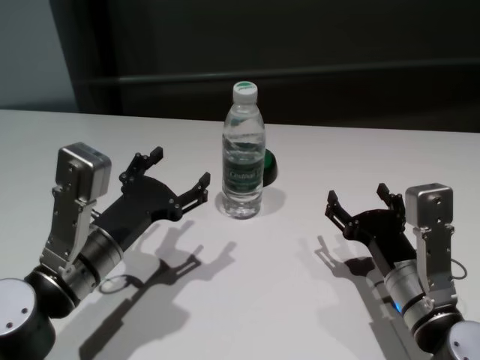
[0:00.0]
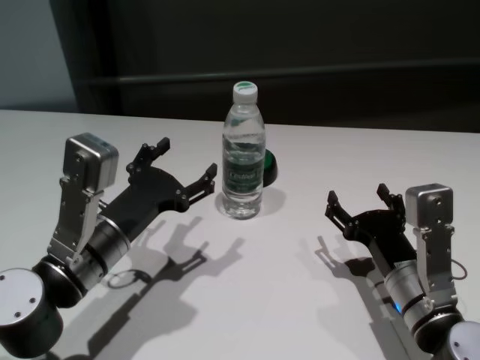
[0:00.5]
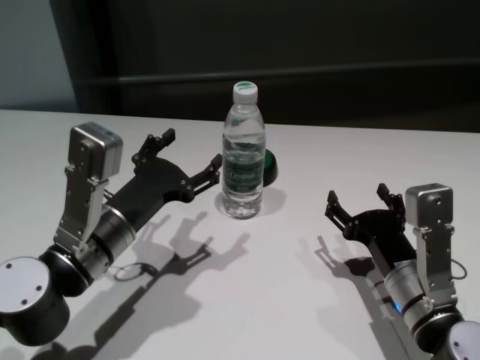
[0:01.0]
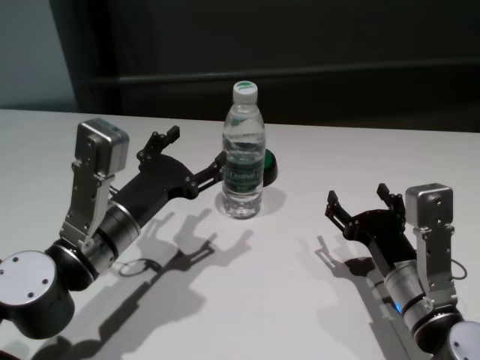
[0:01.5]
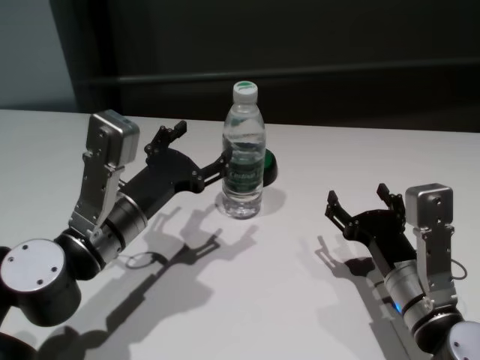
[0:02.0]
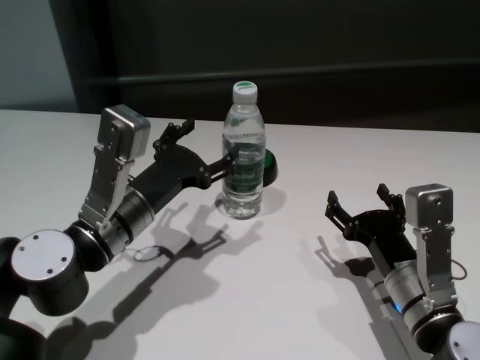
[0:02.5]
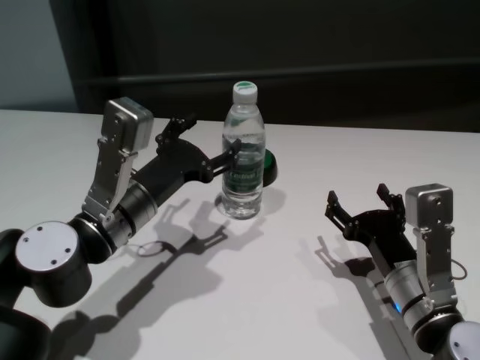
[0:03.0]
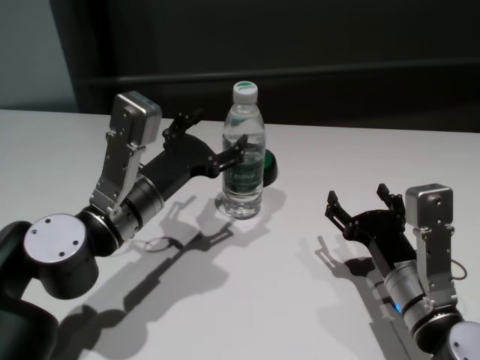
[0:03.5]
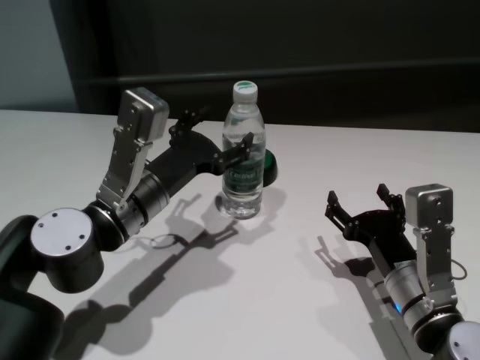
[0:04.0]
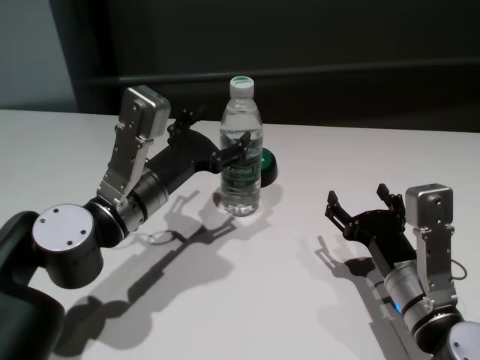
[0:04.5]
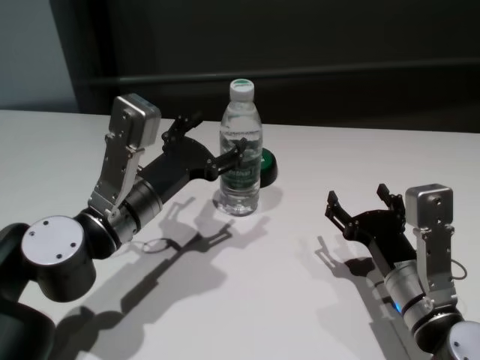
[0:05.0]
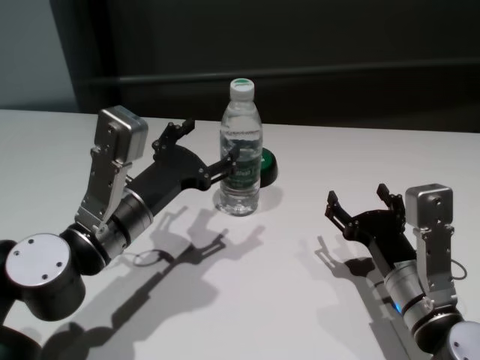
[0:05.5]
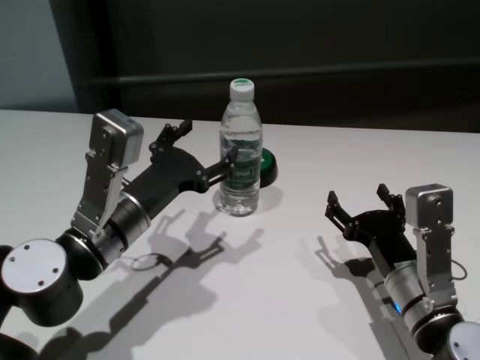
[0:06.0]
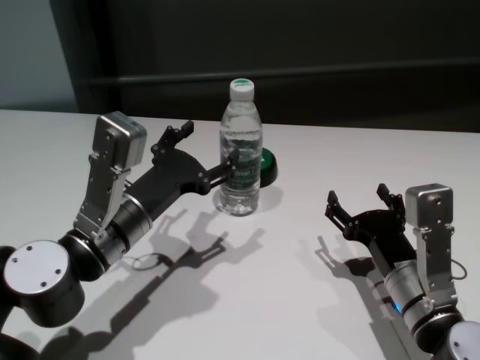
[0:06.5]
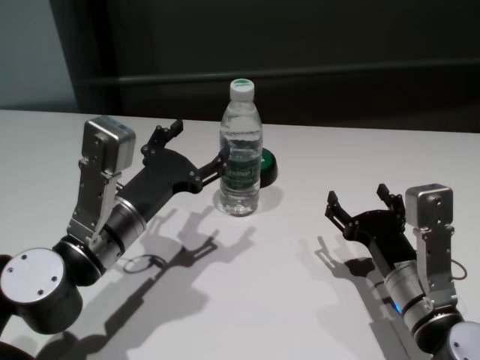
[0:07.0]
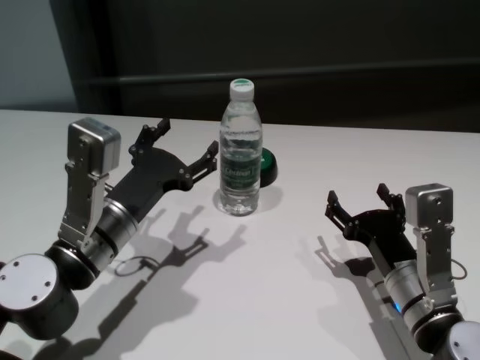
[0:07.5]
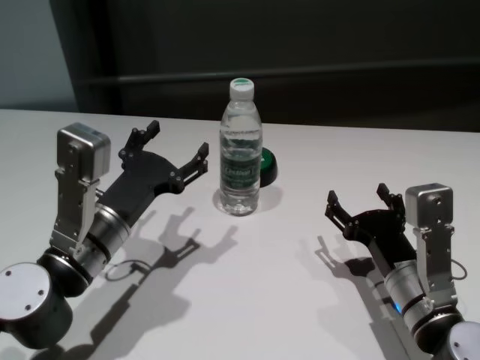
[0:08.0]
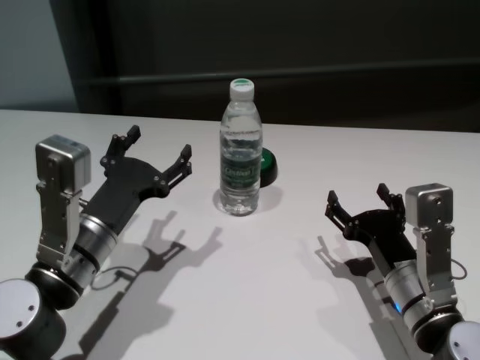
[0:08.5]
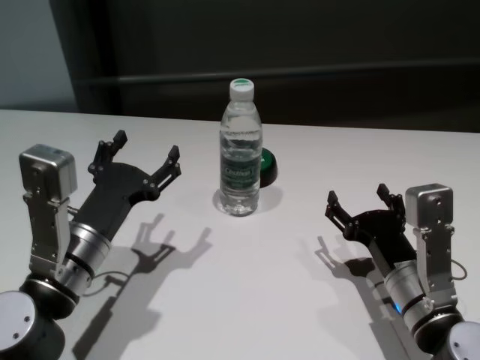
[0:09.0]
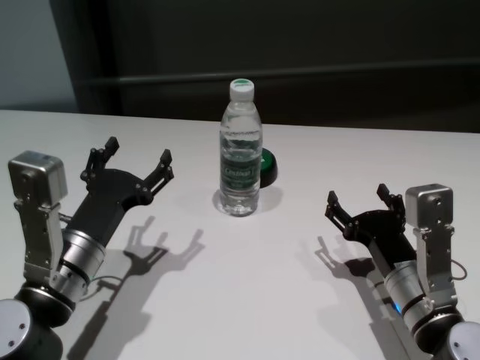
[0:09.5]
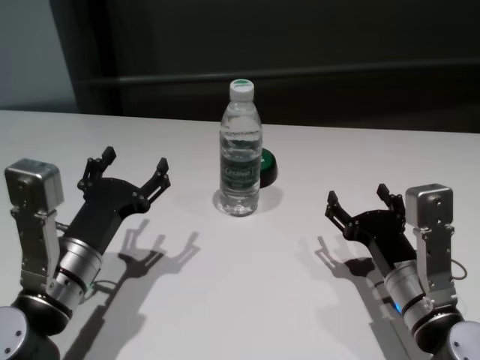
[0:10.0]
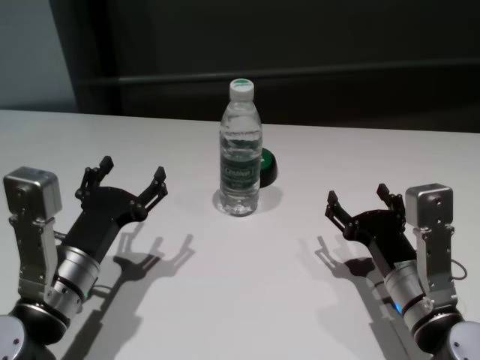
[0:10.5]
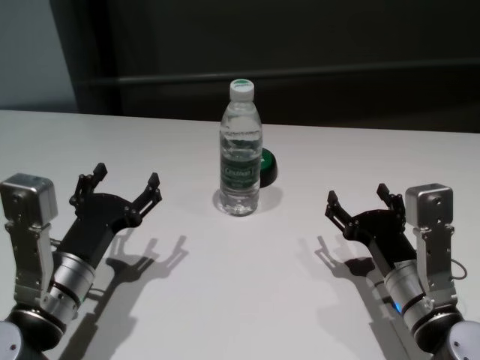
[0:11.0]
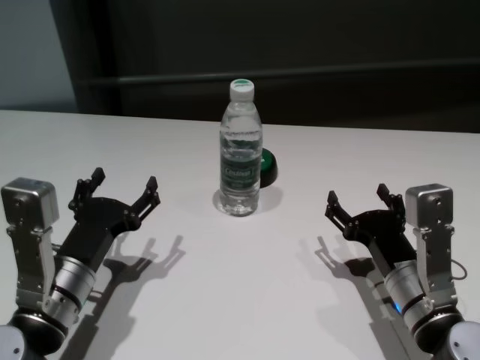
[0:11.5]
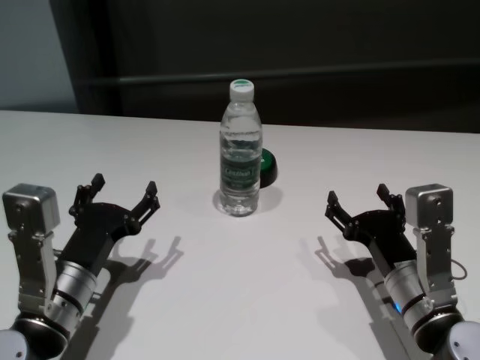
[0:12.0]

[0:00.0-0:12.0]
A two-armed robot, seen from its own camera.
Task of the whole recording: return to a safe position after touching an obstacle with your arm on the white table.
Step, 0:00.0 to 0:07.0: Touch the bottle with left gripper.

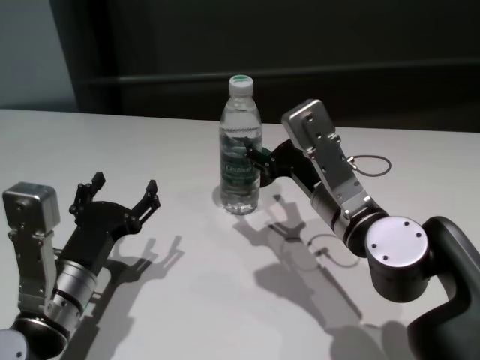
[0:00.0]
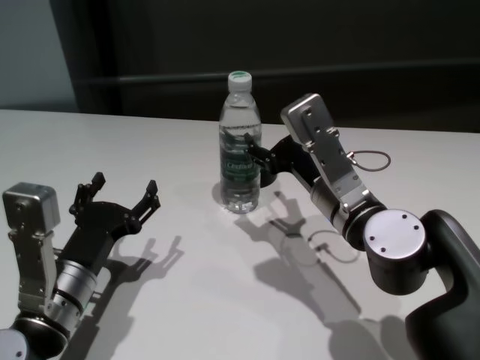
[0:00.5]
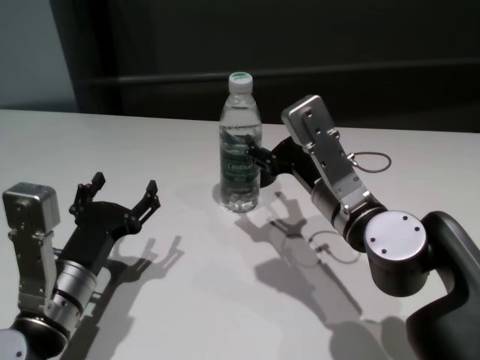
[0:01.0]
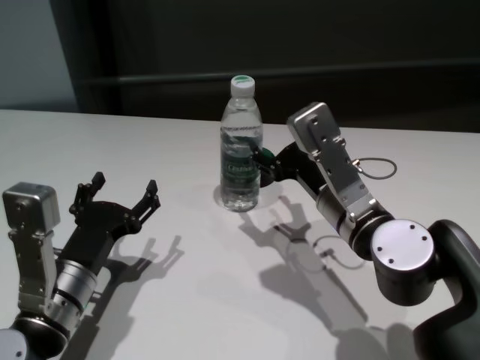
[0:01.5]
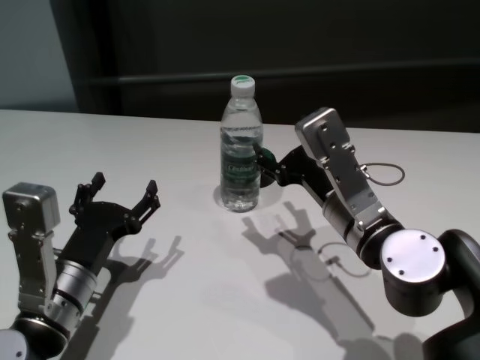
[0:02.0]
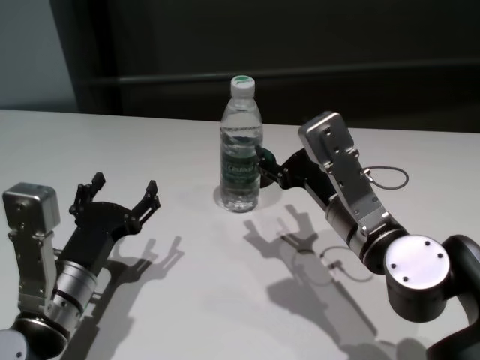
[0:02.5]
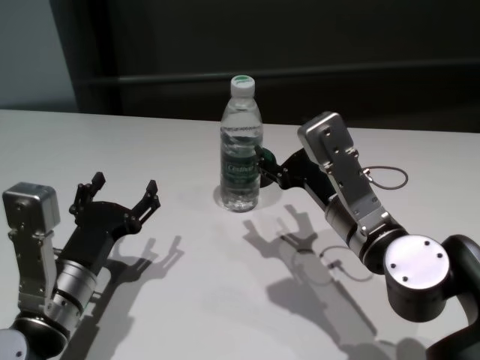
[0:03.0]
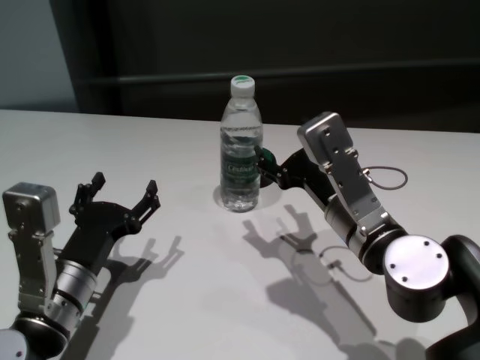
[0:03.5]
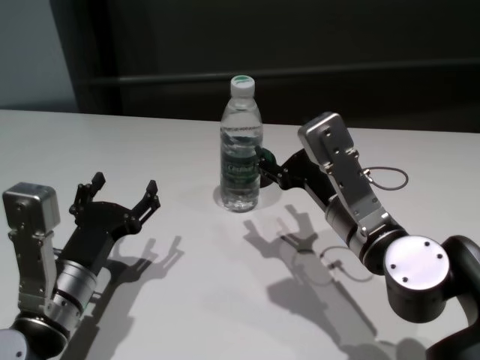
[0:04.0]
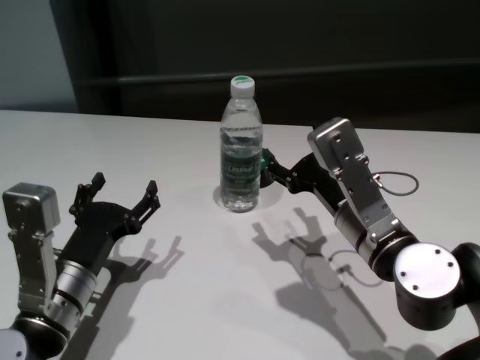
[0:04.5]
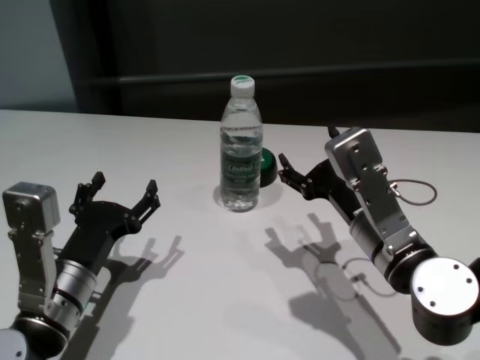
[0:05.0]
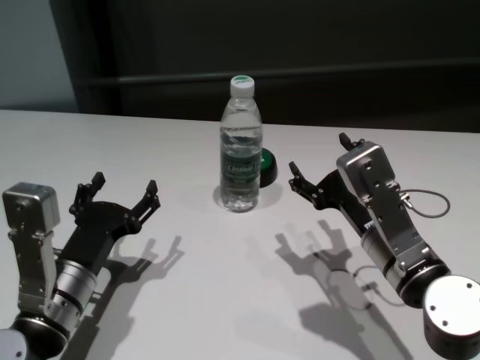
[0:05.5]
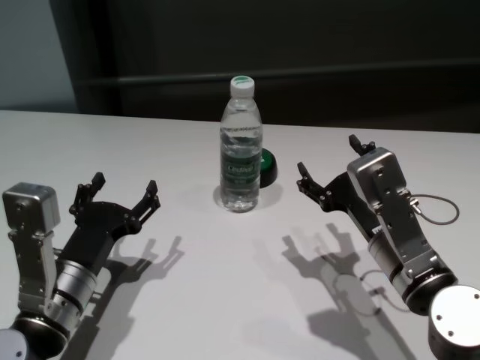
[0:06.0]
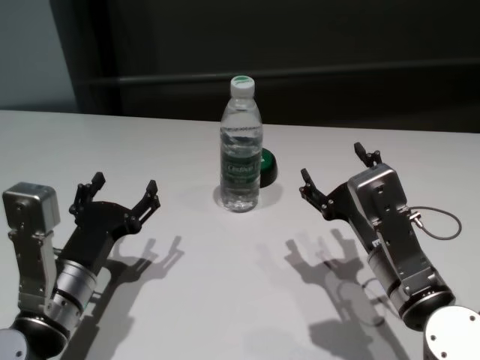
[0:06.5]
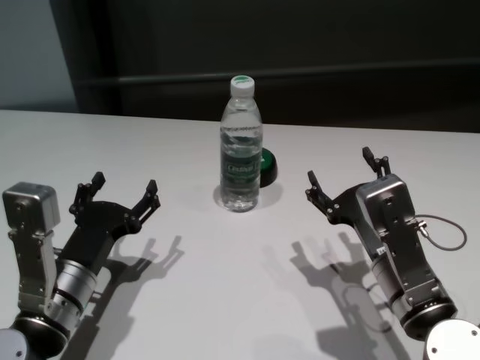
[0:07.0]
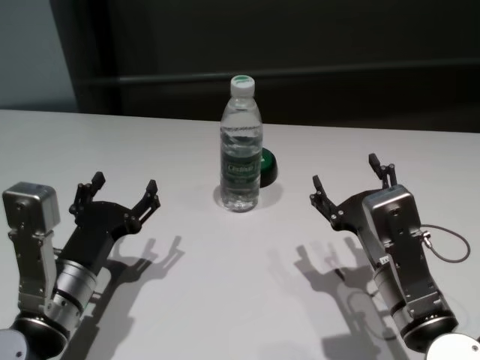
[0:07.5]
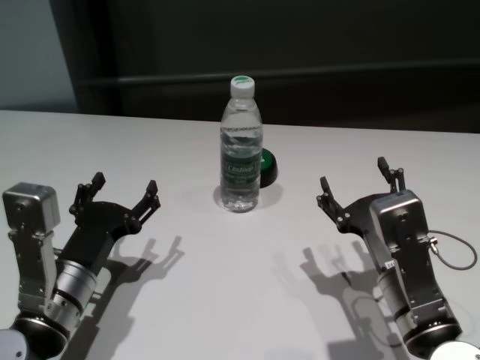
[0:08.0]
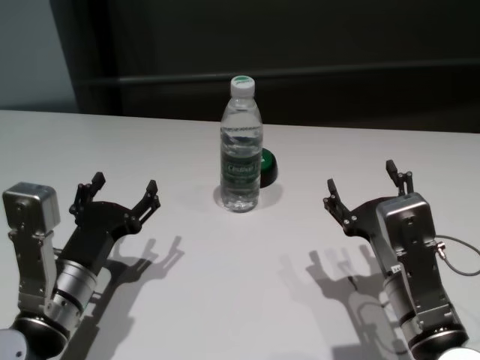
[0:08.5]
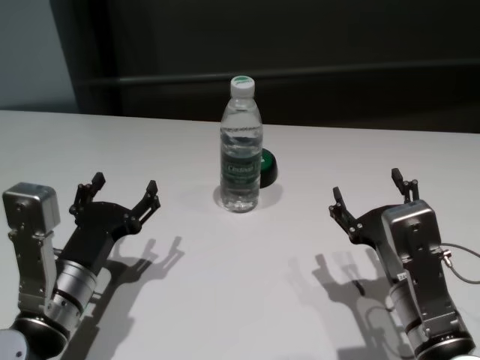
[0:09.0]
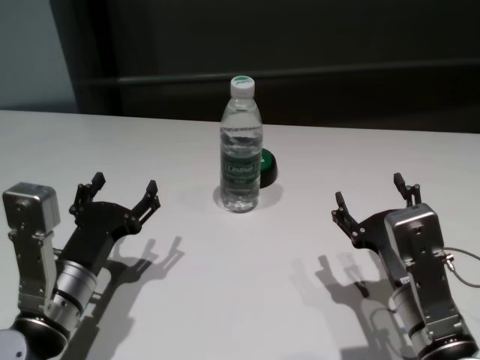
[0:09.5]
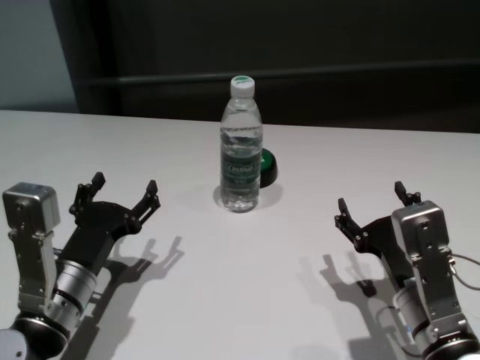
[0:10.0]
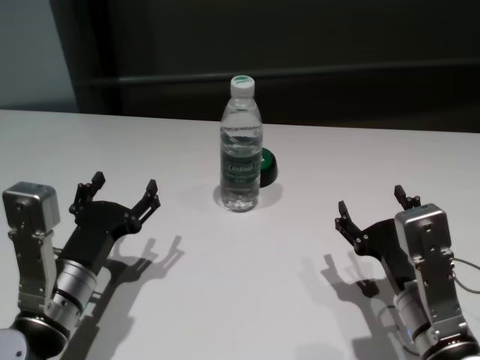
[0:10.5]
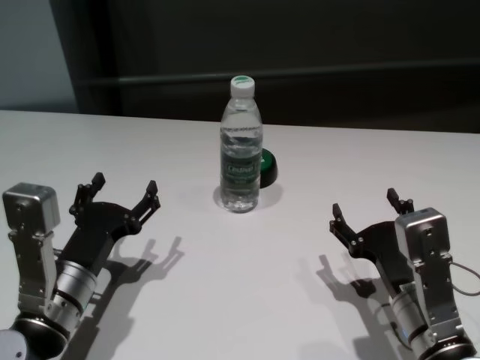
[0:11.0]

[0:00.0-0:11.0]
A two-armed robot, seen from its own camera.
Task of the whole recording: return to a safe position after touching an obstacle with your arm on the white table.
Step, 0:00.0 to 0:04.0: Touch the bottle with right gripper.
